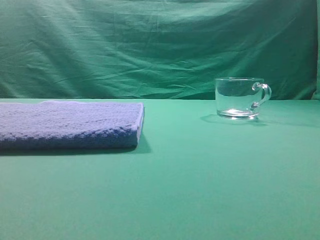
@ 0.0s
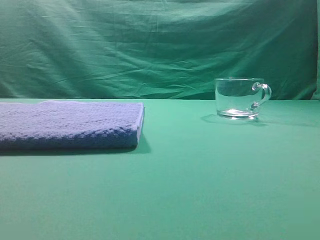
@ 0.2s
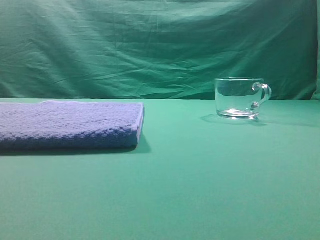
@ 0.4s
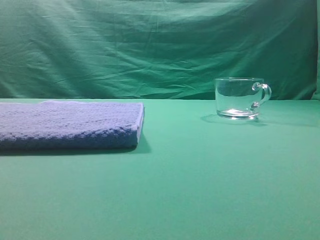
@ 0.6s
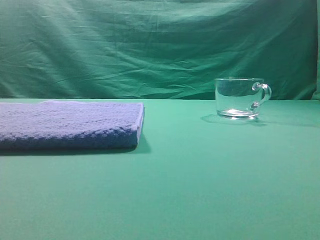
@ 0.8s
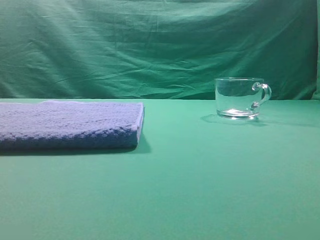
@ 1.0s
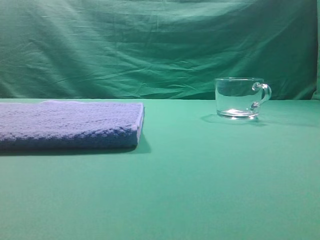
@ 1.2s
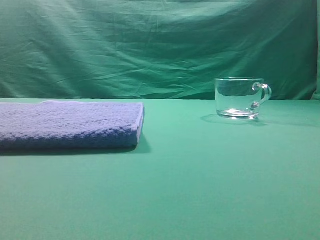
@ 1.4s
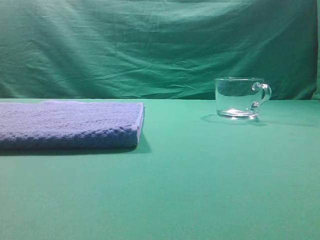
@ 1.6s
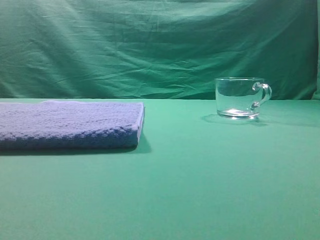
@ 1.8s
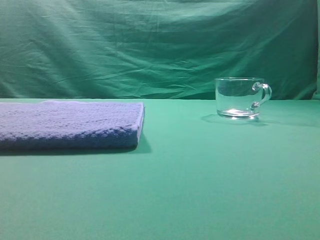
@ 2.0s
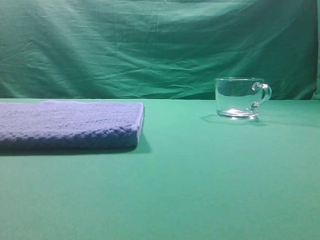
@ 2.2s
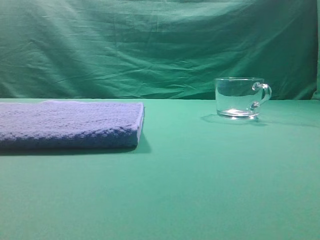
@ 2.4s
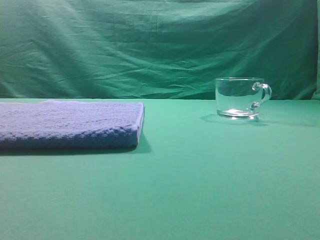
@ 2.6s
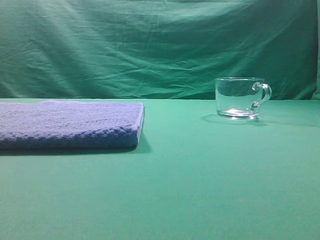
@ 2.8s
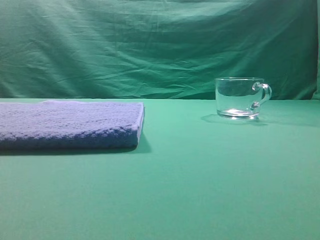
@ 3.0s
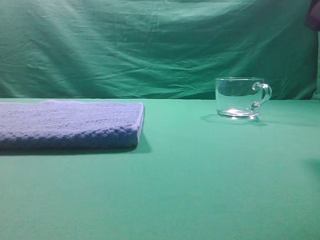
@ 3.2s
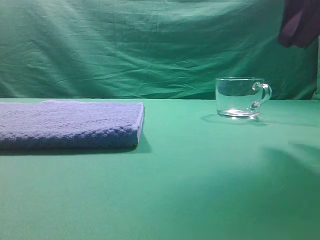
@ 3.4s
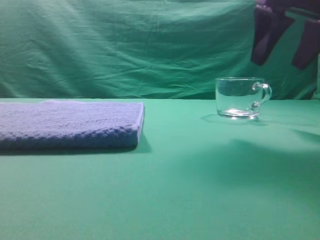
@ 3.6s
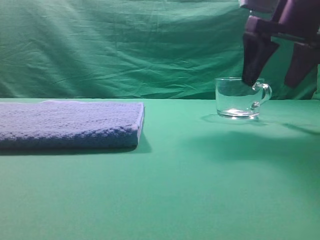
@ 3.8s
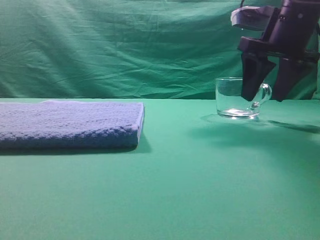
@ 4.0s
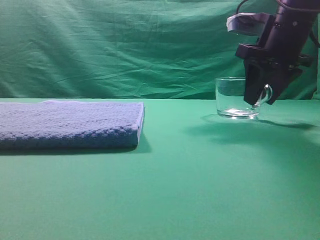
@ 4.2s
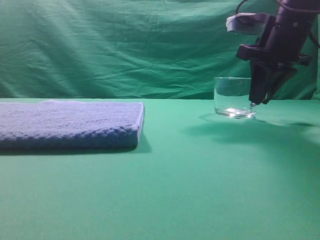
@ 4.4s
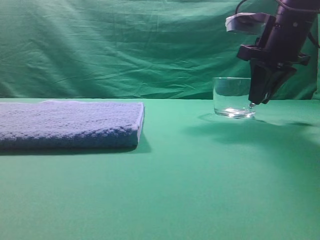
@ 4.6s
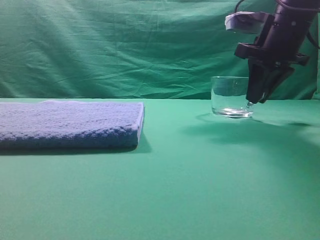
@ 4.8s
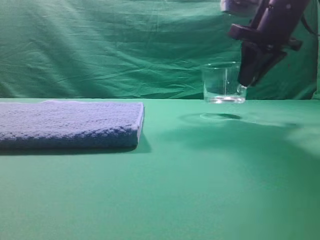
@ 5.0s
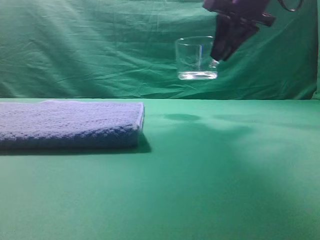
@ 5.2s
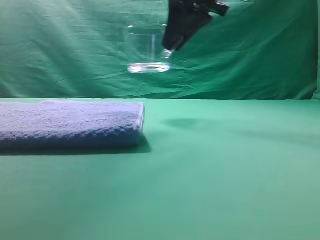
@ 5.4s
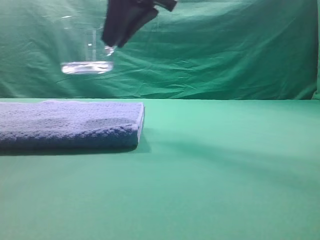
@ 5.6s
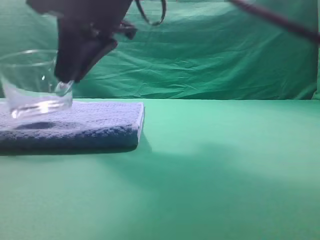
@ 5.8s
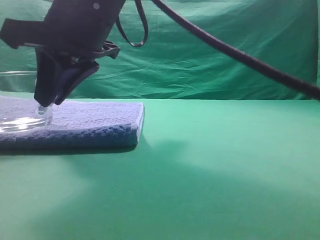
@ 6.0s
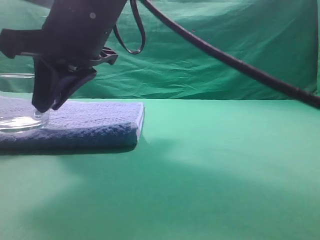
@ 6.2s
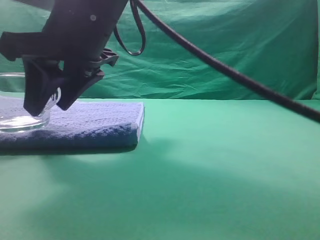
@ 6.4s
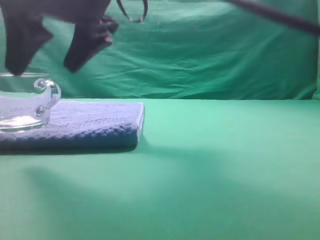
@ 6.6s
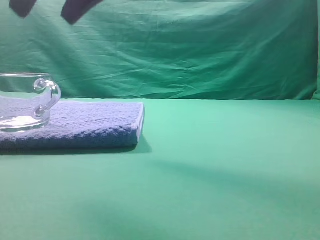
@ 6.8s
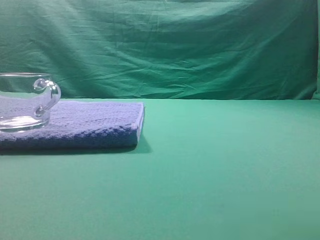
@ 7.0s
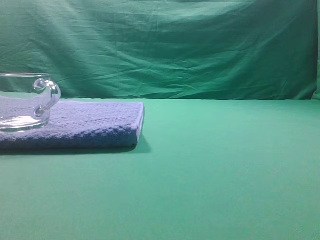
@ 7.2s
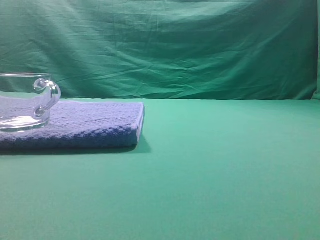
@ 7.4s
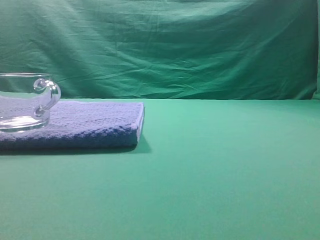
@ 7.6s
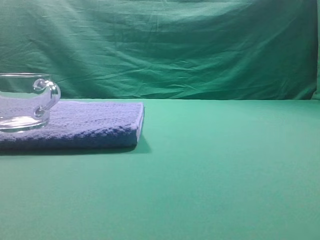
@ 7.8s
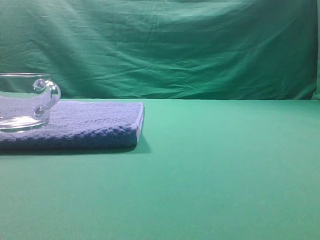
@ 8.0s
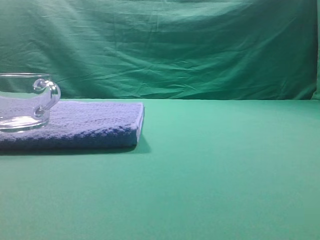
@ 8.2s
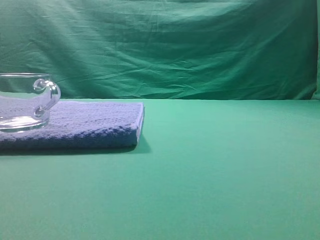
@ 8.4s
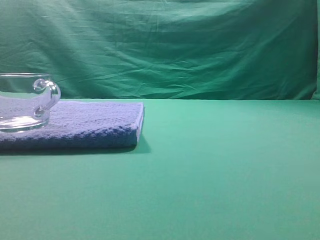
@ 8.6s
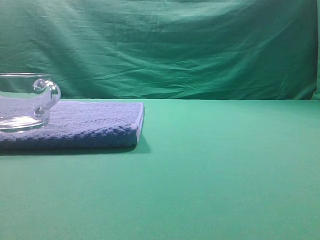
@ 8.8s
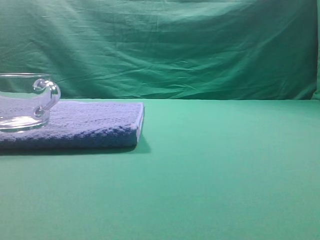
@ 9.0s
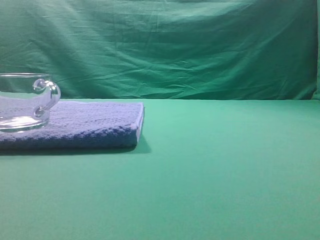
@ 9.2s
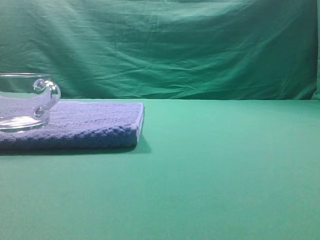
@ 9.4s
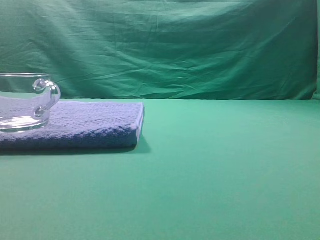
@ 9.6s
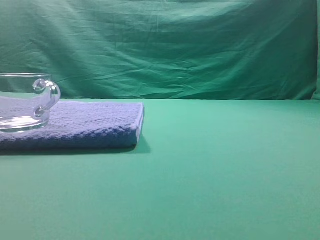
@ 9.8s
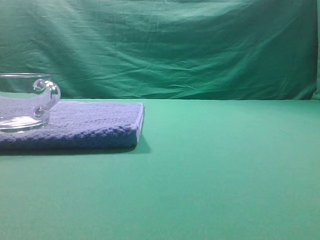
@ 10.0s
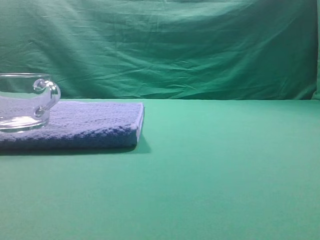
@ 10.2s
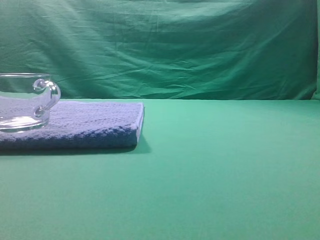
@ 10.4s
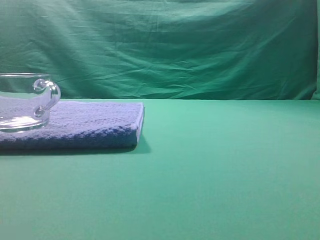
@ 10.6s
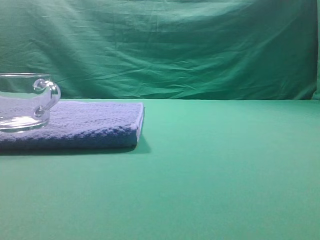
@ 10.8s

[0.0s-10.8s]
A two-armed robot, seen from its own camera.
Task of the whole recording: grasp the transparent glass cup and place it within the blue towel.
Step, 0.0s to 5.0s: Grasp the transparent glass cup.
Step, 5.4s to 6.6s: Place the glass cup on the blue zone.

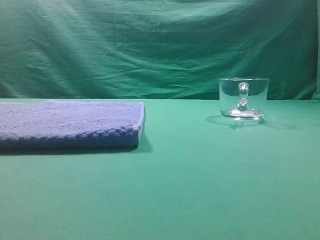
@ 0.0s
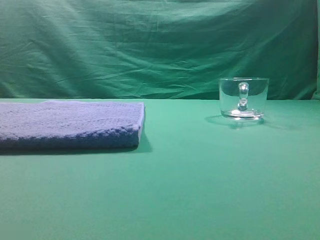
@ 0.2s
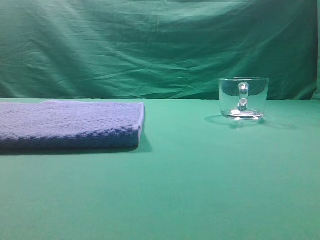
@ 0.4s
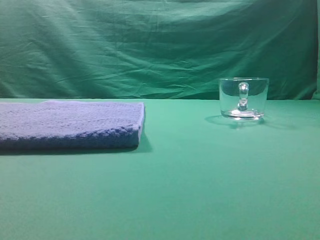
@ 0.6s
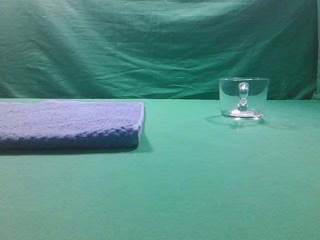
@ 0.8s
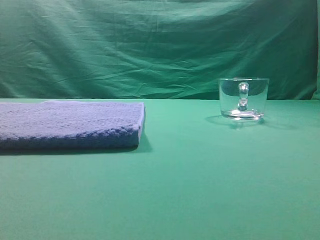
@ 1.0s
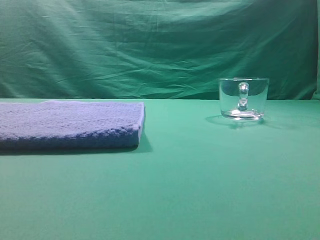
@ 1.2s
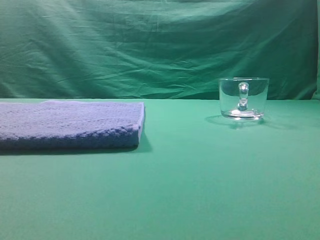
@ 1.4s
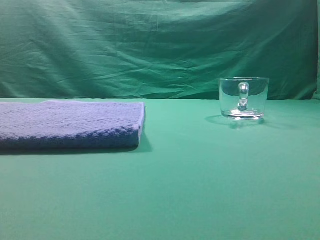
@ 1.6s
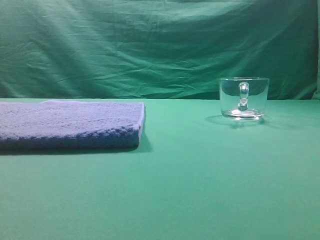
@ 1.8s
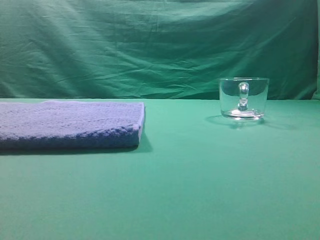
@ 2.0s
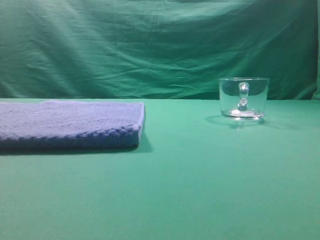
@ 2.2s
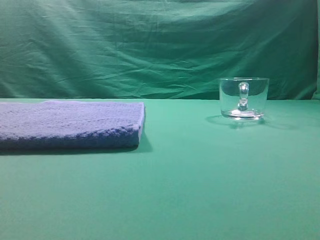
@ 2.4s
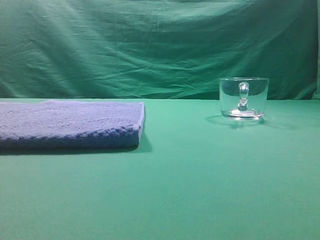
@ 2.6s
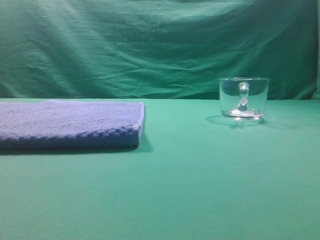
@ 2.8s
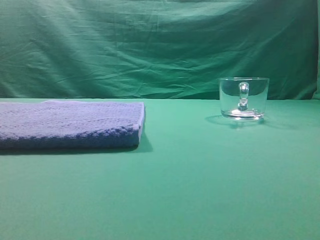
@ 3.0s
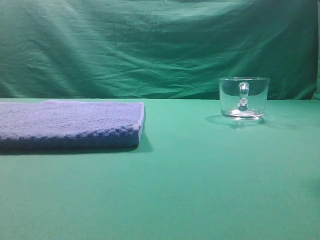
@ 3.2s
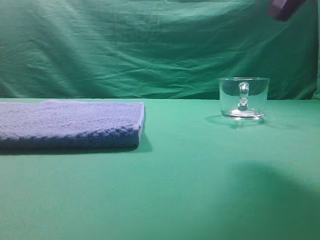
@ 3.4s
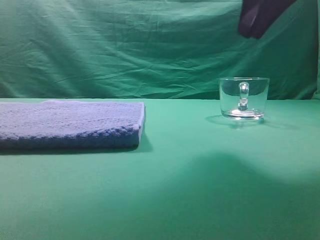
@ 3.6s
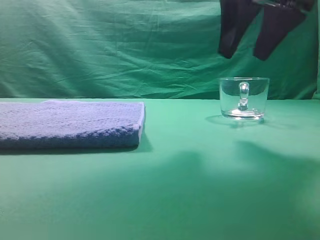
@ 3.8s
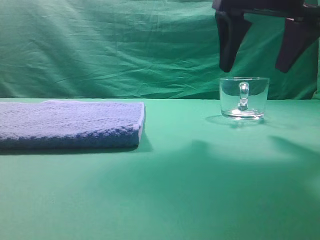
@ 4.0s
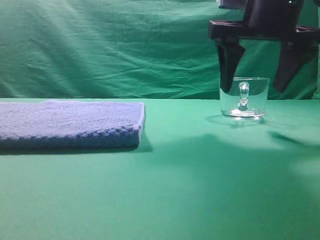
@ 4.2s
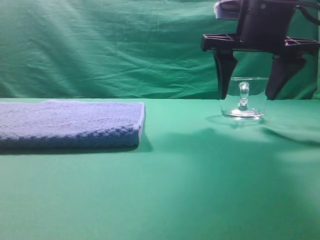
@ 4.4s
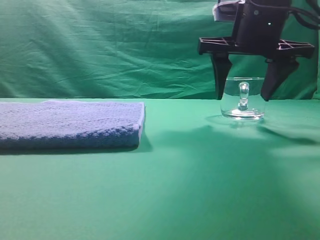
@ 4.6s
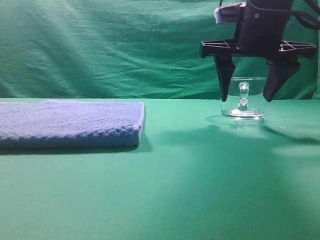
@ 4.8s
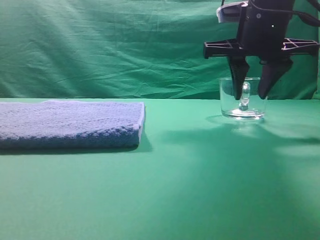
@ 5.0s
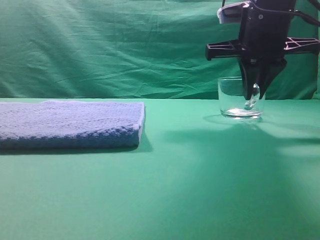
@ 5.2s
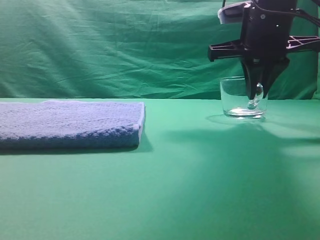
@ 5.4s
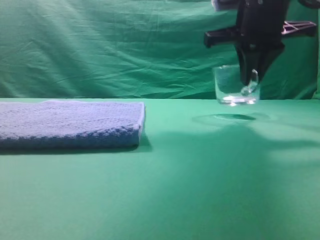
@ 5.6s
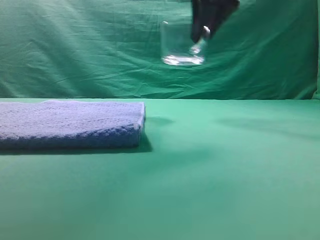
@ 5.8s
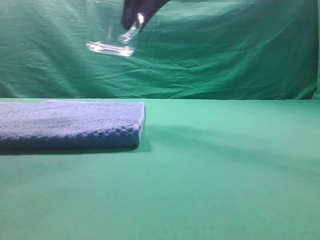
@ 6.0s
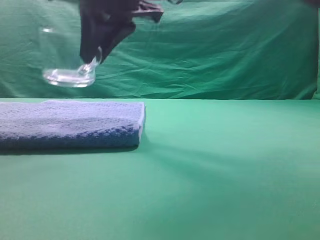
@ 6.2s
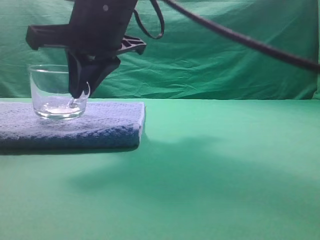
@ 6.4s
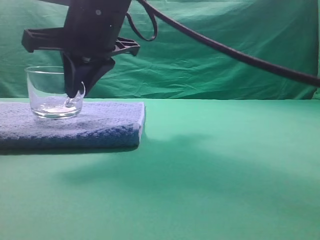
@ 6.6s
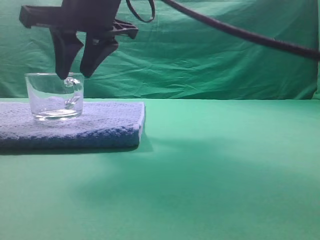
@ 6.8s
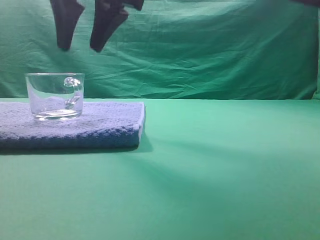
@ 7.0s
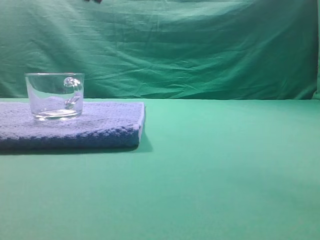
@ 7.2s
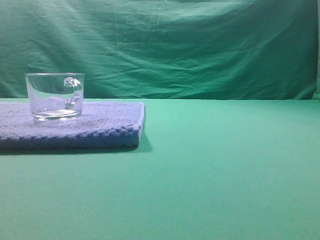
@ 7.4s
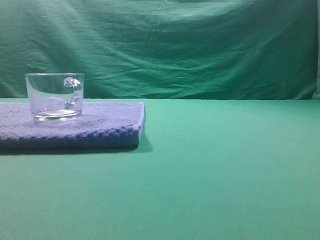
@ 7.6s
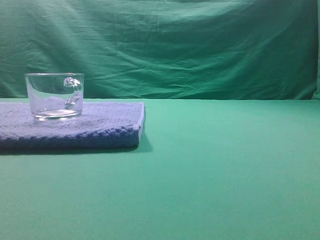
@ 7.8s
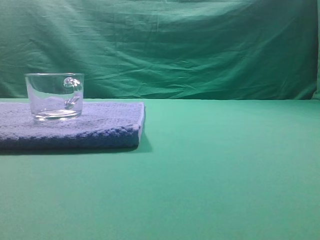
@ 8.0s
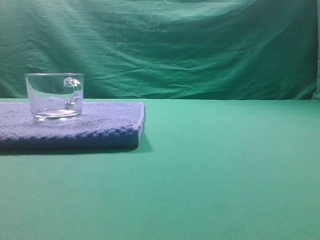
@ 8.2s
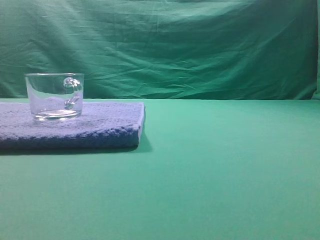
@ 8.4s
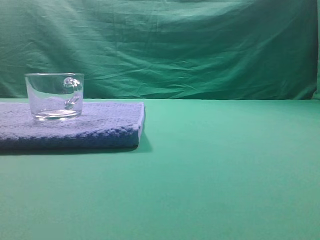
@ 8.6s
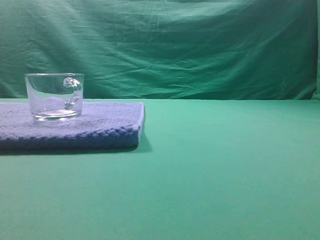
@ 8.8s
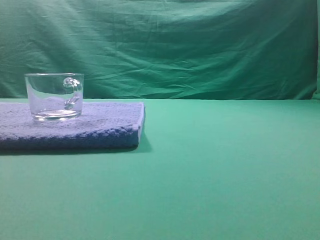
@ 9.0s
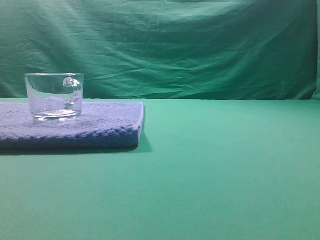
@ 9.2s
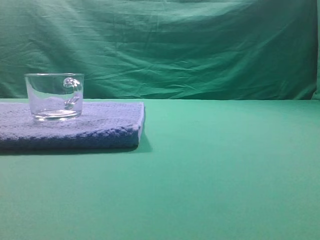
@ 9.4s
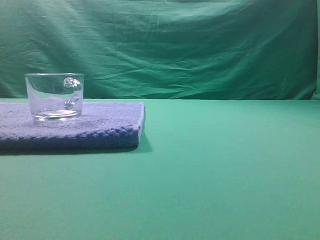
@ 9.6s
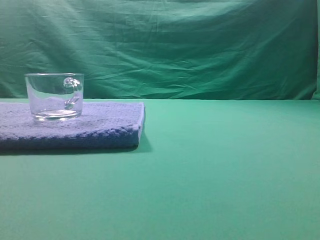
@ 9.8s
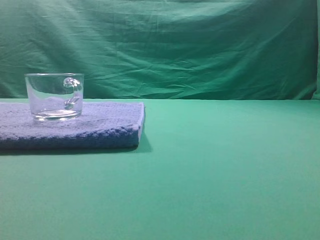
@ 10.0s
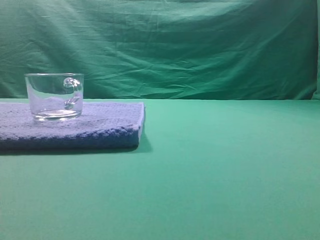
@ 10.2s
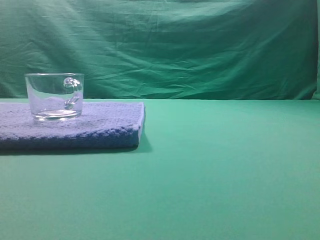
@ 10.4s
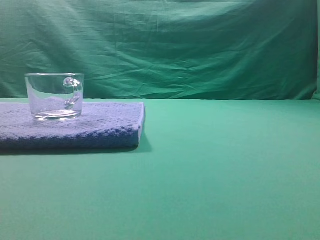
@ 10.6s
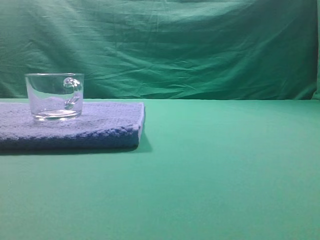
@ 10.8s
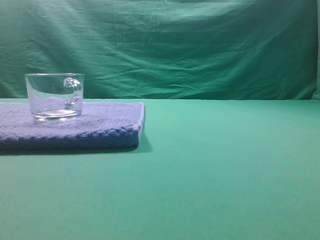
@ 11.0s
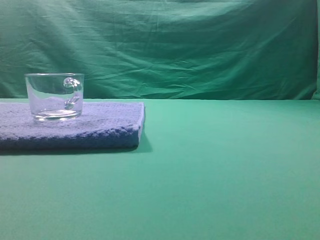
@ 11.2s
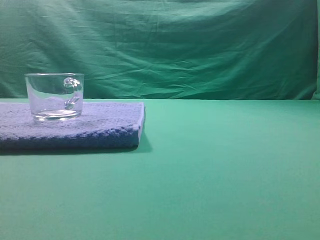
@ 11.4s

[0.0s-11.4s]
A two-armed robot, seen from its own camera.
Task of the whole recording: grasp the transparent glass cup and place it within the blue towel.
Step, 0.0s to 5.4s: Grasp the transparent glass cup.
Step, 5.8s to 6.8s: Place the glass cup on the blue zone.
